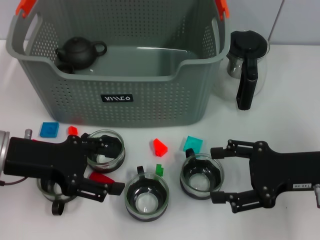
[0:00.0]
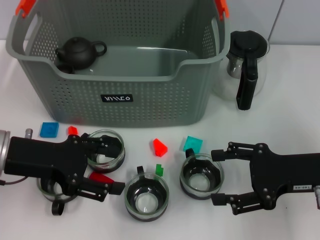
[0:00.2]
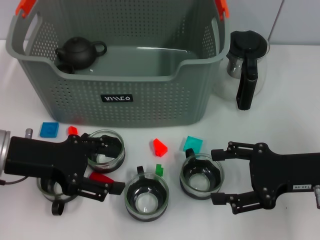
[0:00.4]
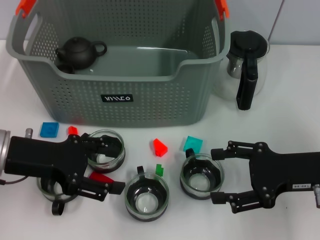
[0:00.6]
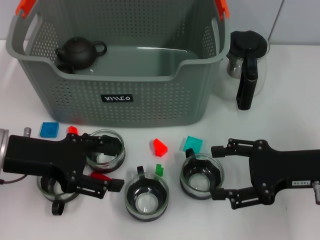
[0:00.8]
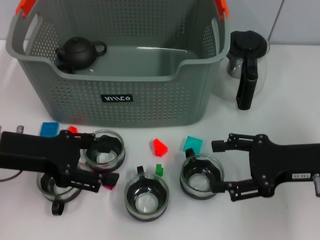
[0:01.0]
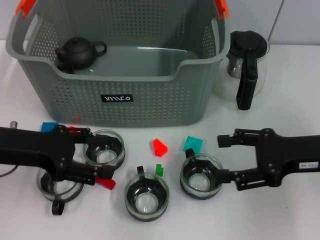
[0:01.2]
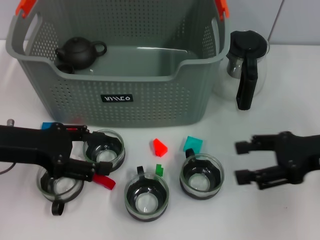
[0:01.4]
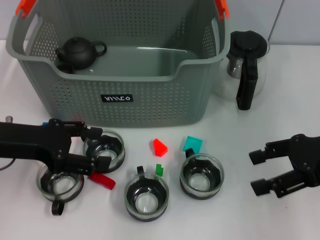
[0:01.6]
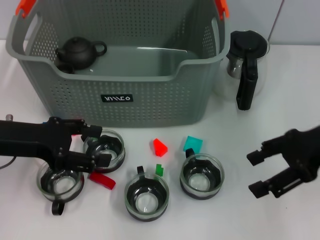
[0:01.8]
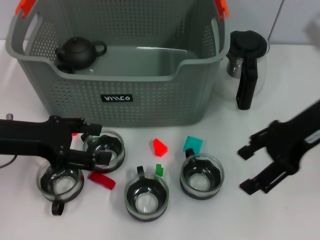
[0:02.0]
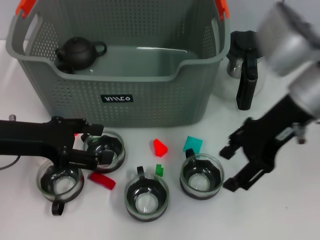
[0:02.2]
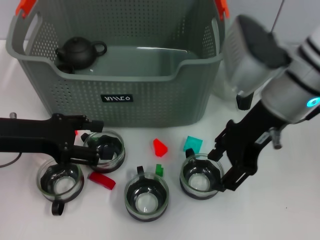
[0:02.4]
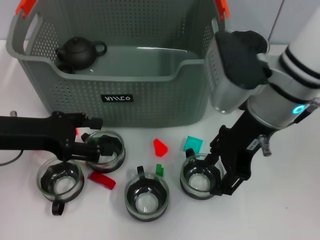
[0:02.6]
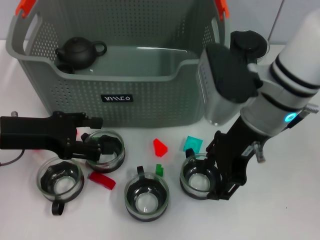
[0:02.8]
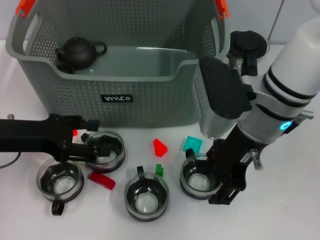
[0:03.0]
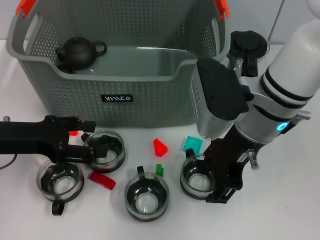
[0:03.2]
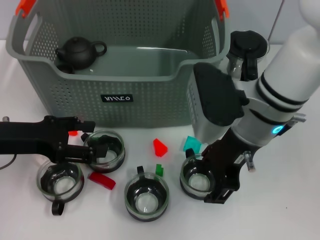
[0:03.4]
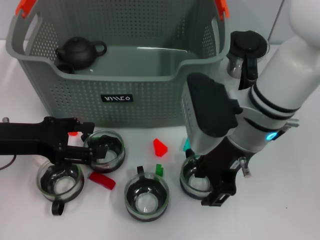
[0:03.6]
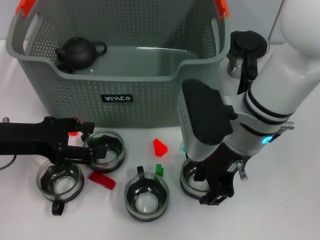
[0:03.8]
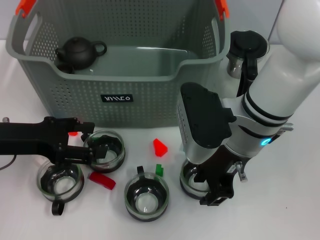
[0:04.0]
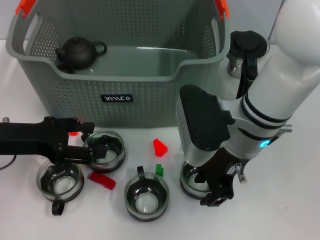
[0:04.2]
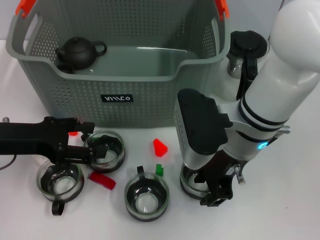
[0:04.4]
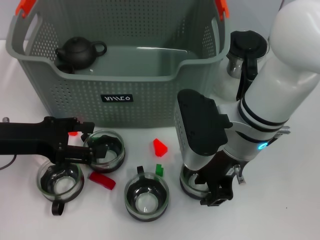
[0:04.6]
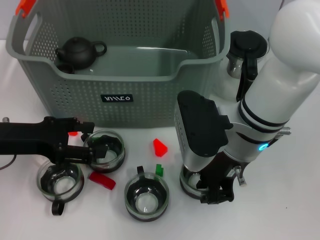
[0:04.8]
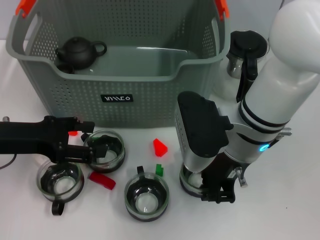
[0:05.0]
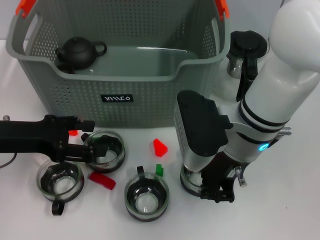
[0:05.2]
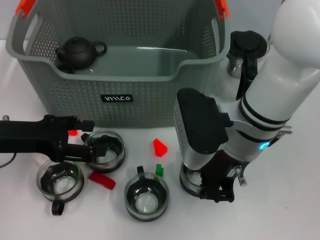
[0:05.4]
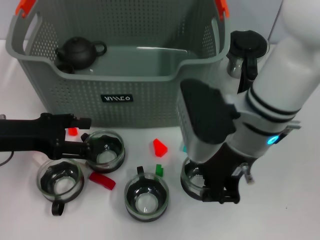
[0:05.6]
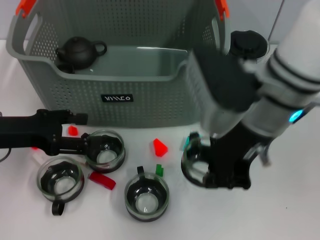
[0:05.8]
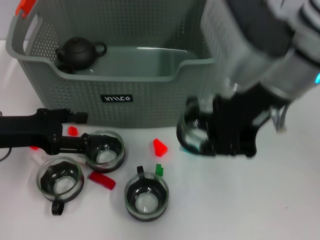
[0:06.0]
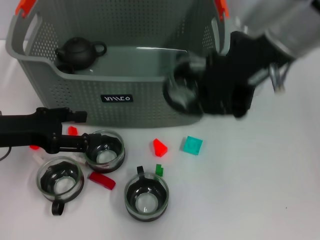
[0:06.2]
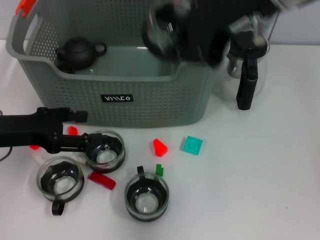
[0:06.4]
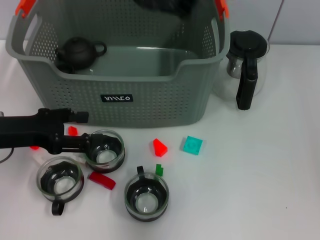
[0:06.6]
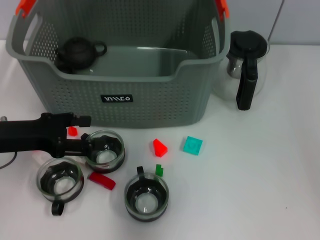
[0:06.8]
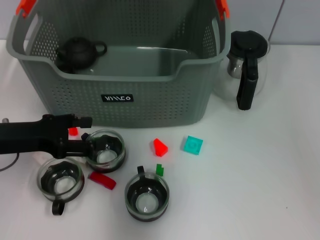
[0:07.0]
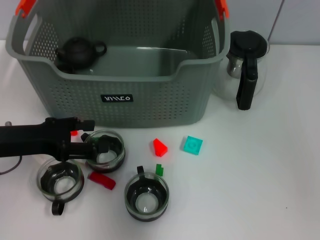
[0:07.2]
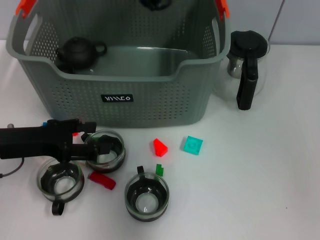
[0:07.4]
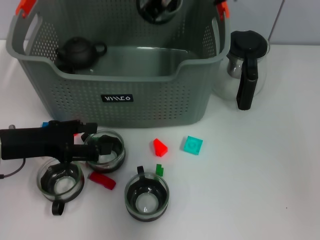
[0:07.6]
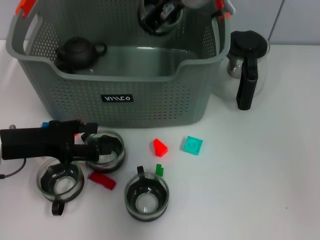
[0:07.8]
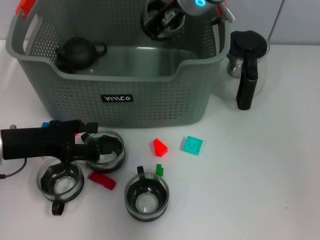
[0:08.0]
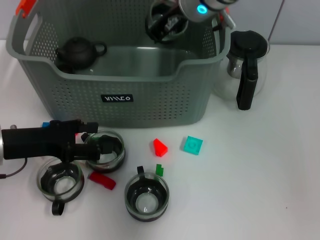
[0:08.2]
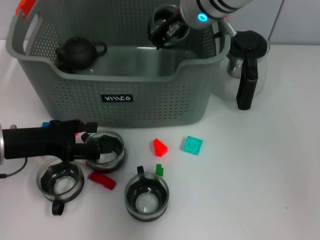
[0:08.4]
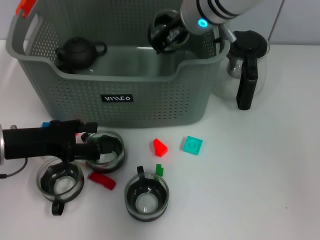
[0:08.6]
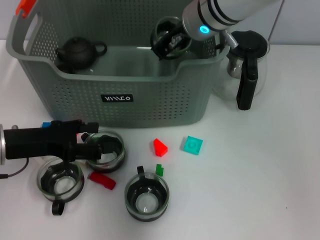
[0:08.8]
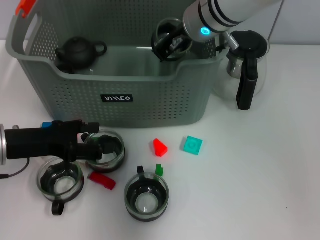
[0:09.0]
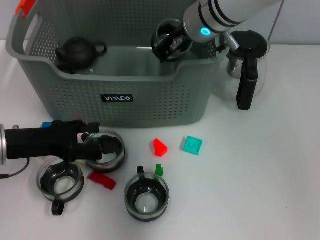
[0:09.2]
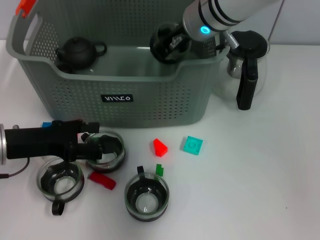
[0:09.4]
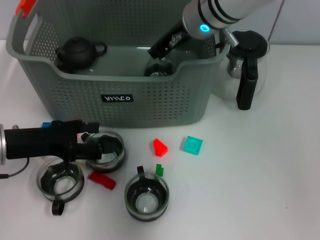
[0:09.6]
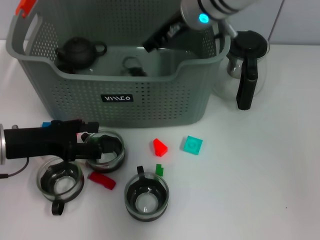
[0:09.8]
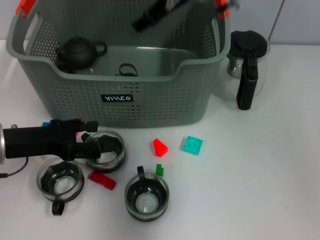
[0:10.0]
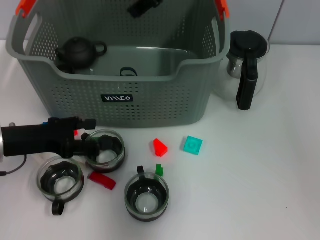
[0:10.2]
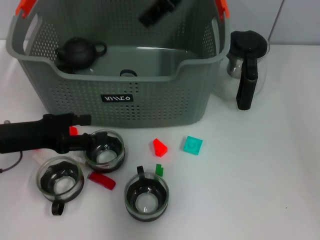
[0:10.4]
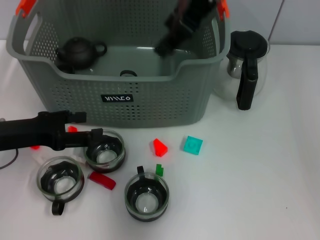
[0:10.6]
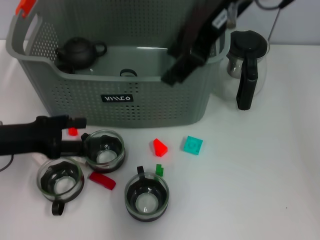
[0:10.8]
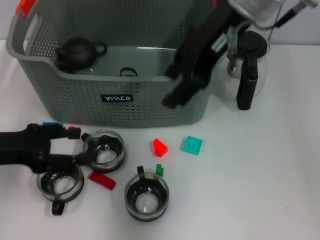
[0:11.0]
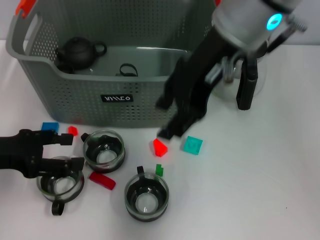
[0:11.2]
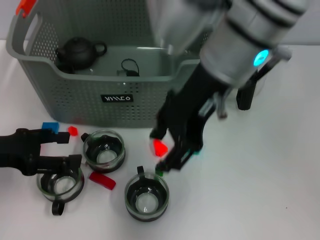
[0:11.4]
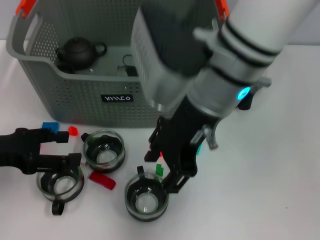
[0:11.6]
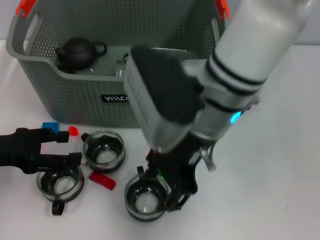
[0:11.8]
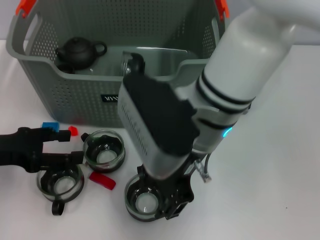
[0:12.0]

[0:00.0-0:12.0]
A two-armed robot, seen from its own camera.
Task of the whole recording: pick up the teacup on the table and place it into the storage bin, pick up the block on the table and place it into the storage bin.
Step, 0.0 to 5.6 s: Grasp the cup with right gripper.
Step, 5.8 to 9.8 s: Place the cup in the storage box with right gripper.
0.0 to 1.6 s: The right gripper travels upward by approximately 5 cm.
1.6 to 3.0 s: The right gripper heads to the left, covering some 15 cm.
3.0 to 4.4 s: The grippers move only a little.
4.4 to 6.0 s: The right gripper is displaced upward by approximately 15 cm, and closes.
6.0 to 7.6 s: The right gripper moves forward and to the left, roughly 15 cm.
7.6 to 9.0 s: The right gripper moves downward, roughly 5 cm.
9.0 to 10.4 s: The right gripper goes approximately 15 cm upward, and opens its fingers.
10.4 to 12.0 s: The right gripper is displaced downward and backward by roughly 20 cm.

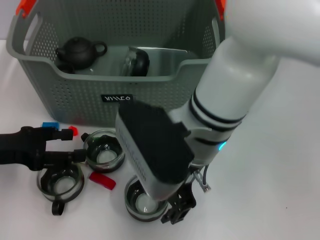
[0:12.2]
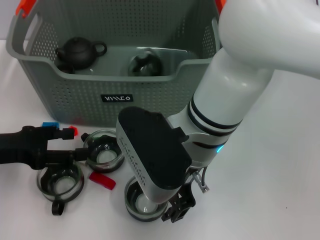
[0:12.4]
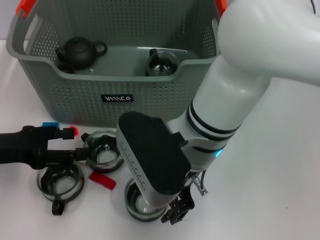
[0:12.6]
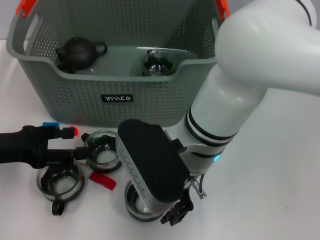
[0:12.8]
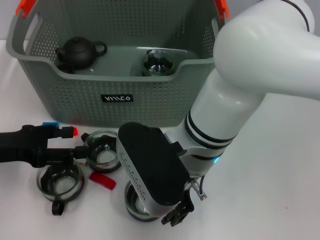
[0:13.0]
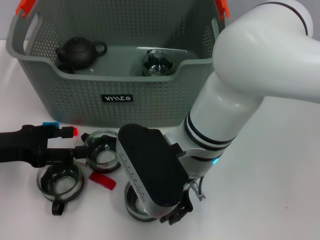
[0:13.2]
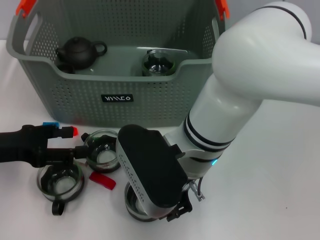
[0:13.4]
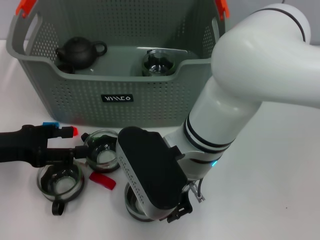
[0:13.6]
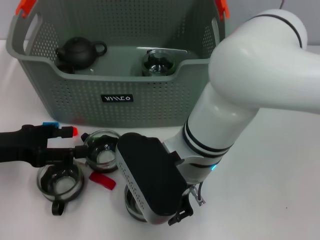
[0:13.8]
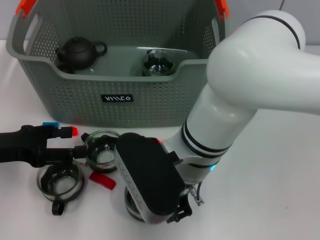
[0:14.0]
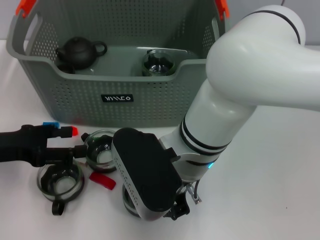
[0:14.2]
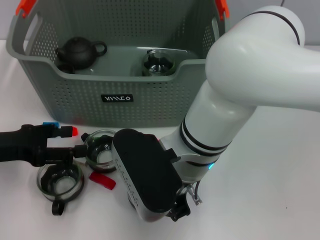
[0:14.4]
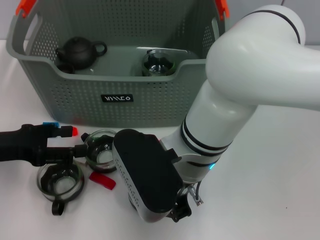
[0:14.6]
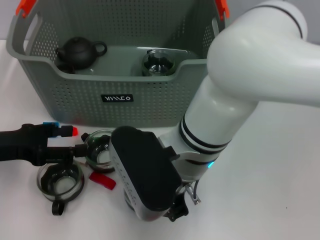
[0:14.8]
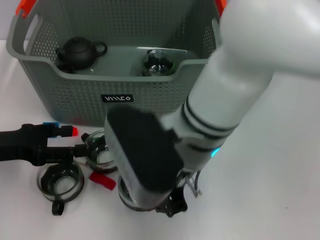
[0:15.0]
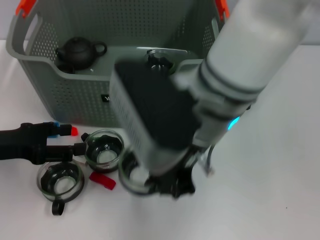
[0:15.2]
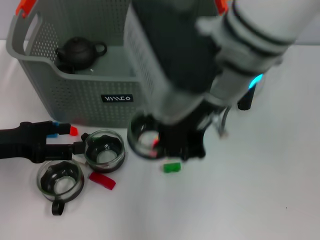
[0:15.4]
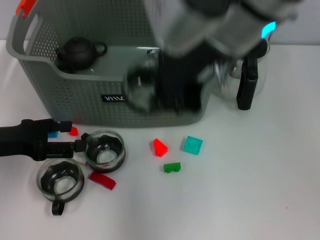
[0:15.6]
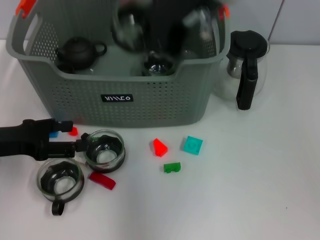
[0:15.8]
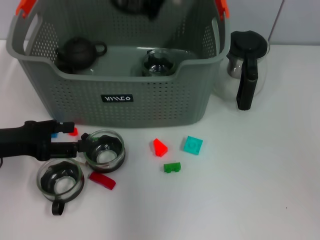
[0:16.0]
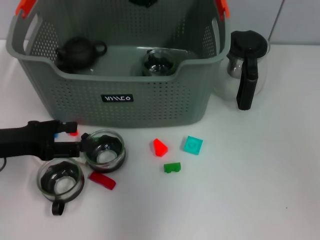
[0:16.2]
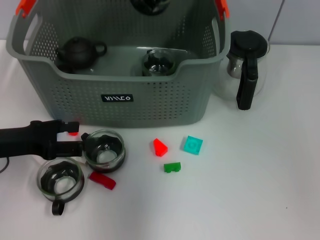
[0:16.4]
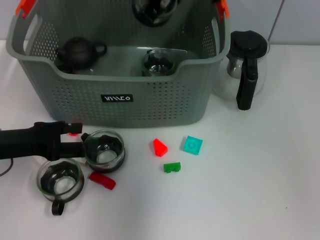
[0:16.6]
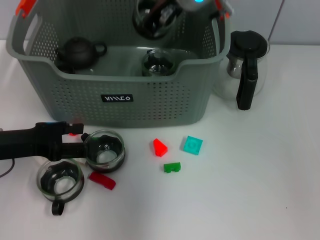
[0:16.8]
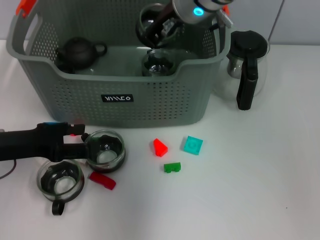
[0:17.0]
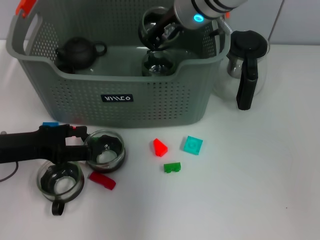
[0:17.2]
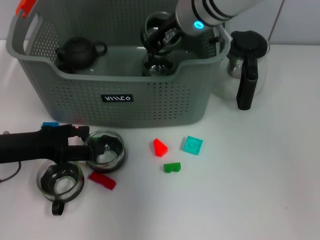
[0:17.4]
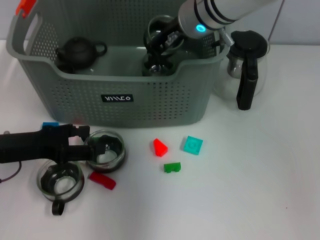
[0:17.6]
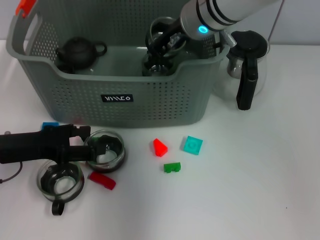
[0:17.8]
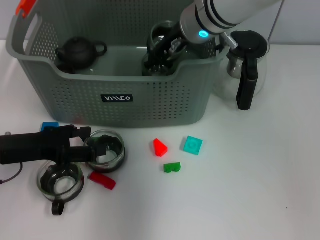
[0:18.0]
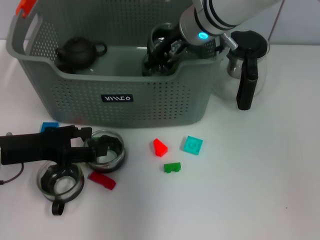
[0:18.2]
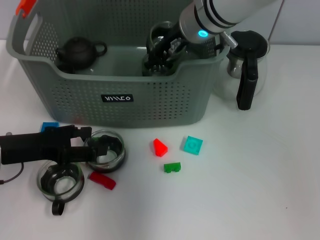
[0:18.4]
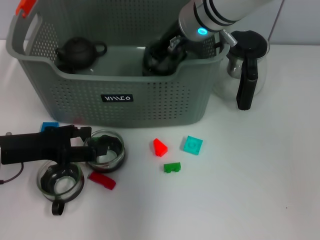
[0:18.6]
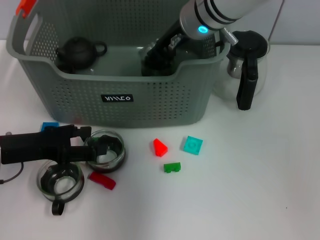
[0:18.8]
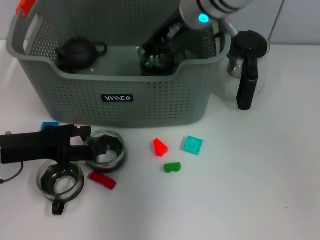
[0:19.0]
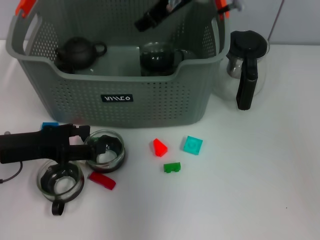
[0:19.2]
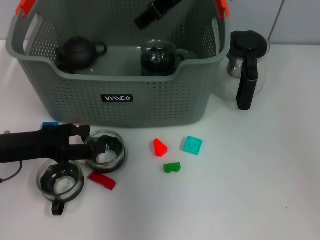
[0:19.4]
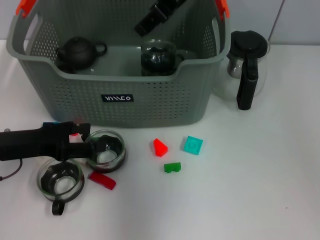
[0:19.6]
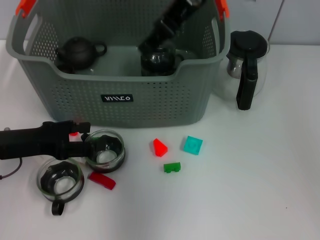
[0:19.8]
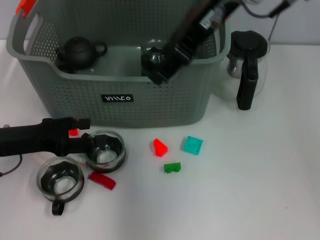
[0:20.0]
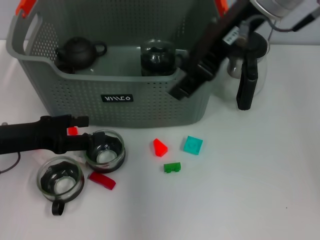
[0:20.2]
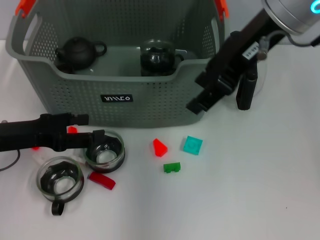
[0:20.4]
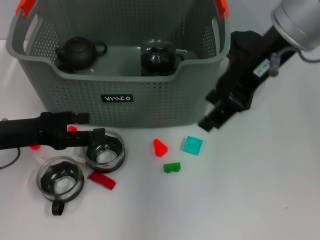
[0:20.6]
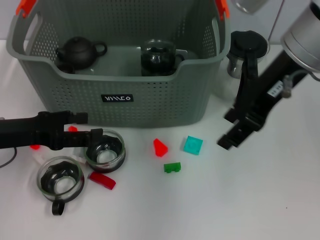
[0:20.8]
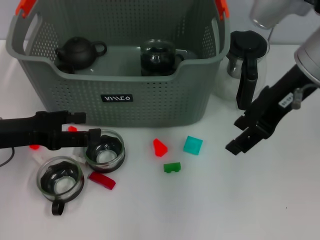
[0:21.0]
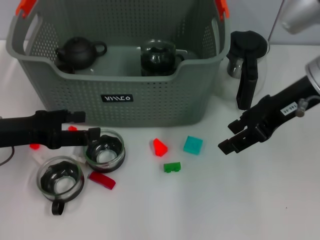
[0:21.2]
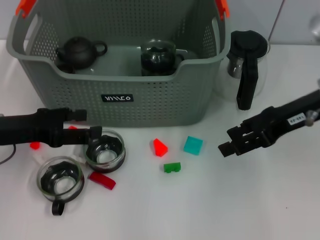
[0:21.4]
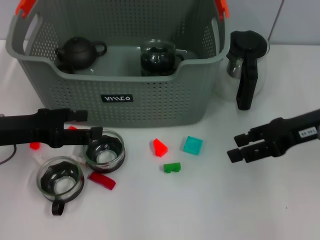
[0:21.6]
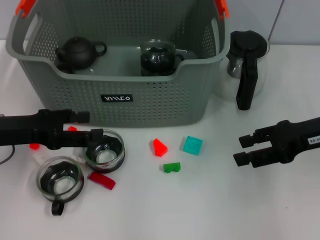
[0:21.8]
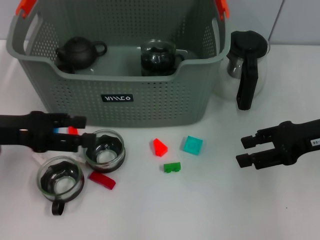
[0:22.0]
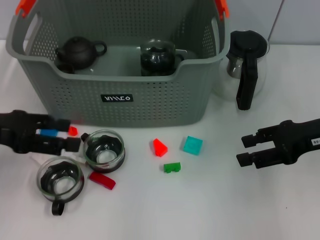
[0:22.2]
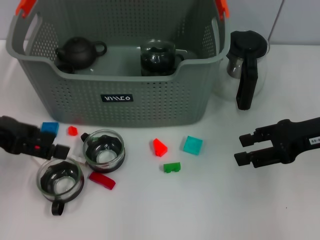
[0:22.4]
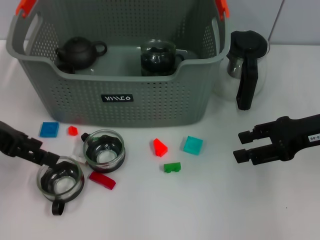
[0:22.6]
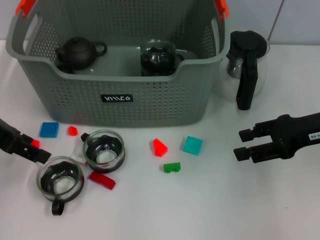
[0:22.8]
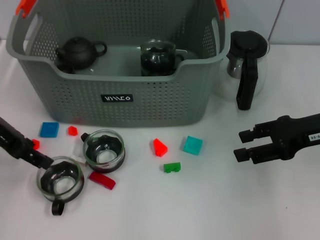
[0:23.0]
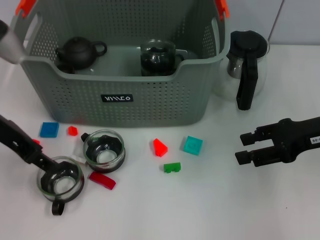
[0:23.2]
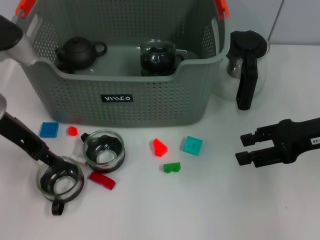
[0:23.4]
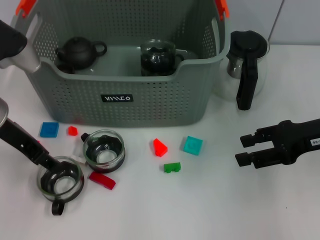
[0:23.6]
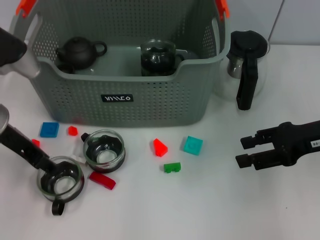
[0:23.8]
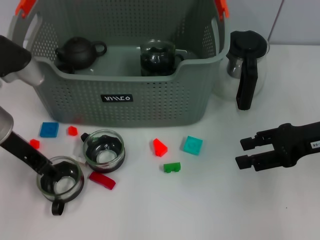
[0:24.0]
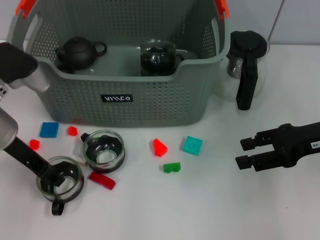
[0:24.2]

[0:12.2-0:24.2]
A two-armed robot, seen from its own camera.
Task of the whole recording: pick up the teacup on the table and place it into the storage bin, pick up the block on the table and place it into the storage bin.
Step, 12.2 to 15.0 s: Grasp the cup with right gripper.
Step, 15.2 to 19.0 s: Place the cup in the storage box with right gripper.
13.8 to 15.2 s: The right gripper moves upward, about 10 cm, and closes its fingers.
15.2 to 16.6 s: The right gripper shifts approximately 15 cm forward.
16.6 to 18.2 s: The right gripper is displaced downward by about 5 cm.
18.2 to 19.8 s: The right gripper heads upward, covering roughly 15 cm, and opens its fingers.
19.8 to 21.2 s: The right gripper goes about 15 cm to the right and downward.
21.2 to 22.6 s: The left gripper heads upward, covering approximately 10 cm; the right gripper is displaced to the right and downward by approximately 10 cm.
22.6 to 24.2 s: The left gripper heads to the right and downward, covering some 10 cm.
